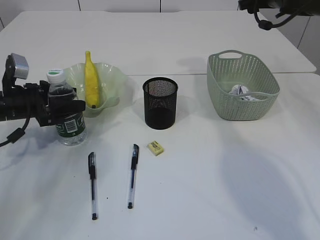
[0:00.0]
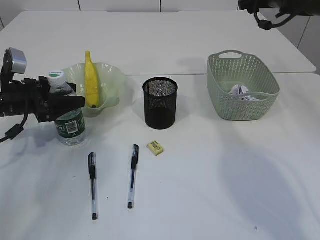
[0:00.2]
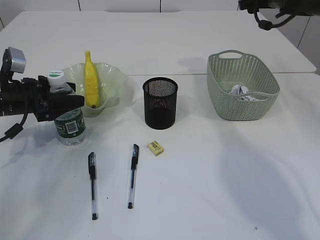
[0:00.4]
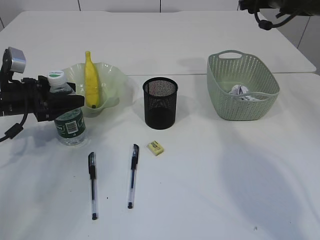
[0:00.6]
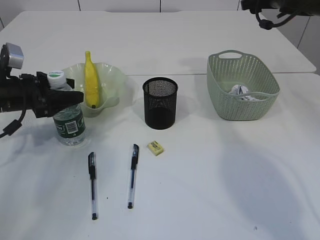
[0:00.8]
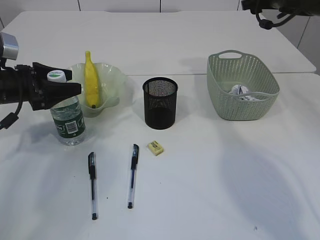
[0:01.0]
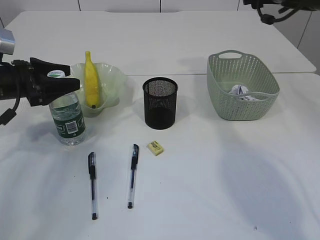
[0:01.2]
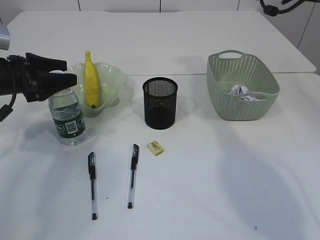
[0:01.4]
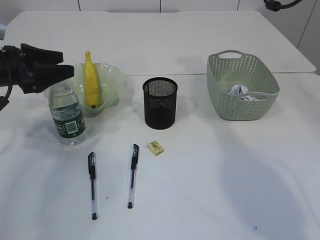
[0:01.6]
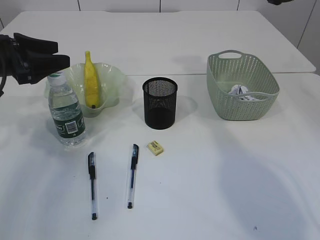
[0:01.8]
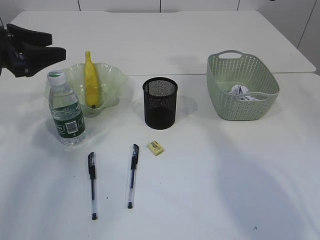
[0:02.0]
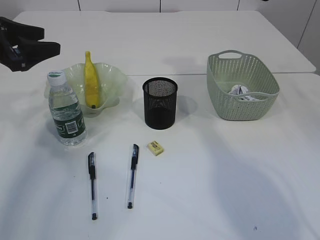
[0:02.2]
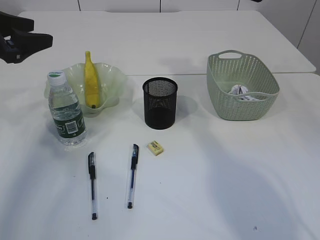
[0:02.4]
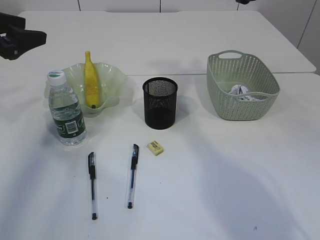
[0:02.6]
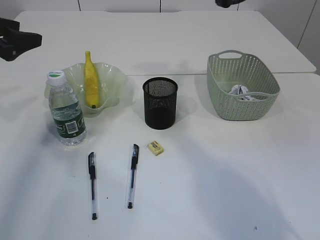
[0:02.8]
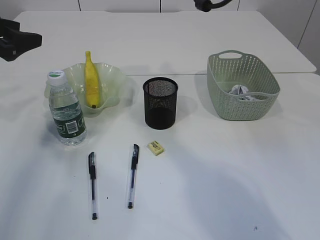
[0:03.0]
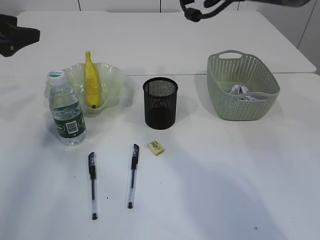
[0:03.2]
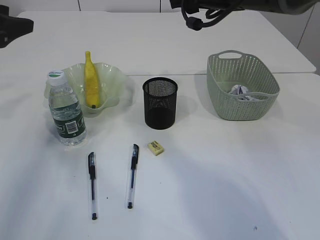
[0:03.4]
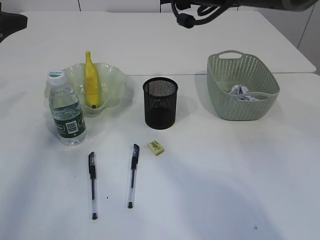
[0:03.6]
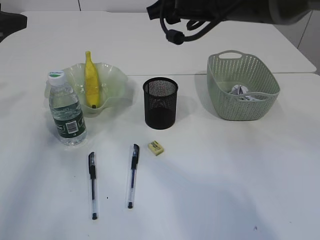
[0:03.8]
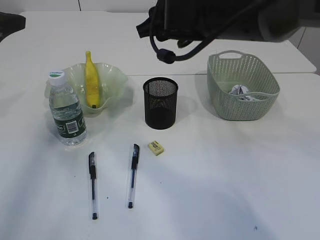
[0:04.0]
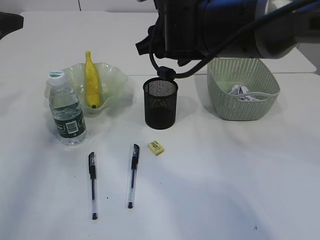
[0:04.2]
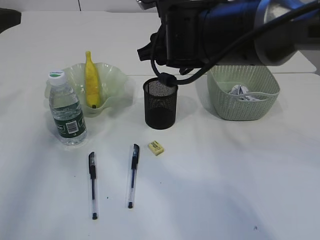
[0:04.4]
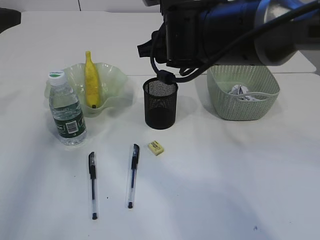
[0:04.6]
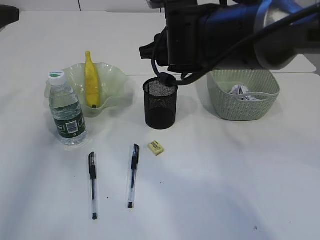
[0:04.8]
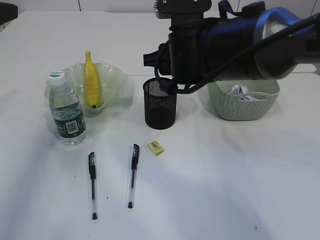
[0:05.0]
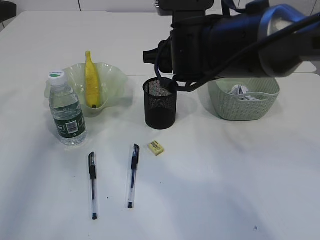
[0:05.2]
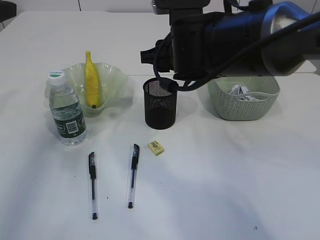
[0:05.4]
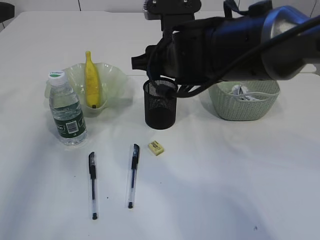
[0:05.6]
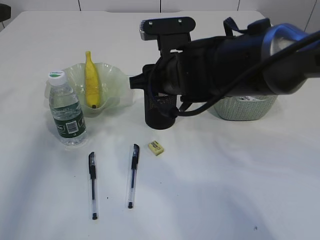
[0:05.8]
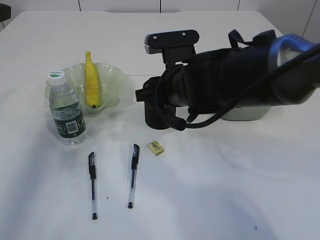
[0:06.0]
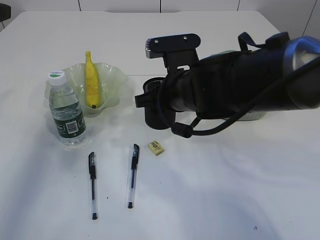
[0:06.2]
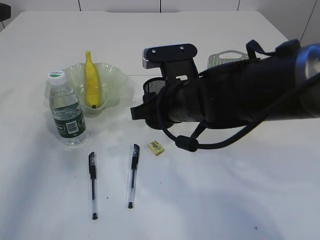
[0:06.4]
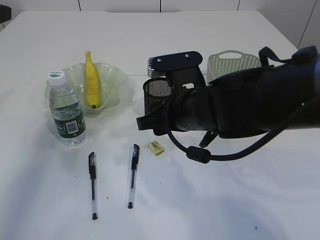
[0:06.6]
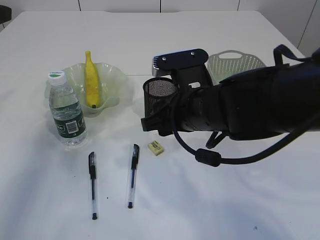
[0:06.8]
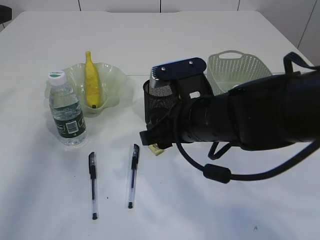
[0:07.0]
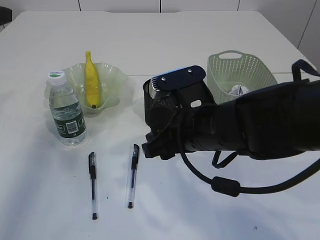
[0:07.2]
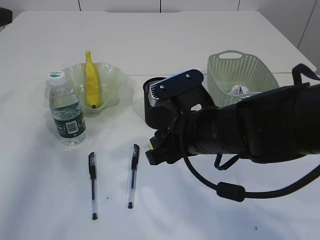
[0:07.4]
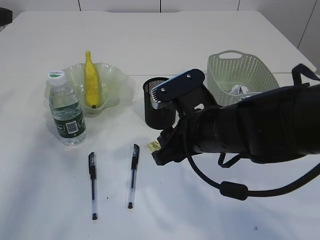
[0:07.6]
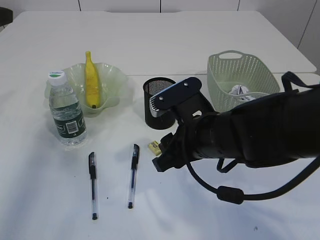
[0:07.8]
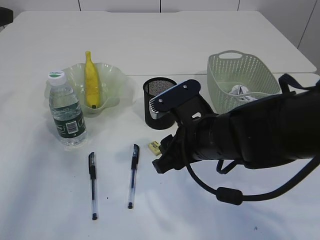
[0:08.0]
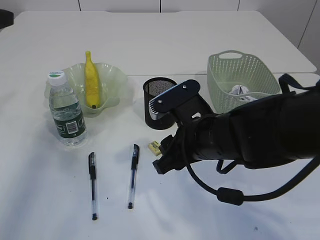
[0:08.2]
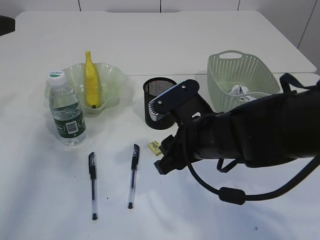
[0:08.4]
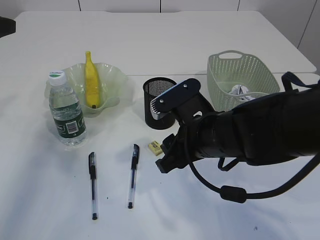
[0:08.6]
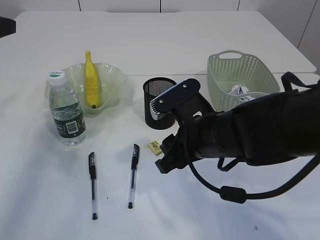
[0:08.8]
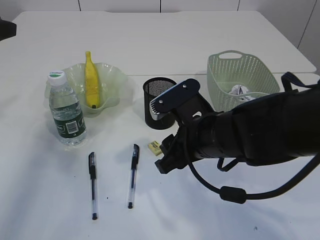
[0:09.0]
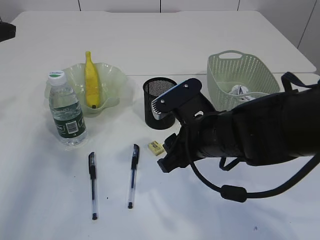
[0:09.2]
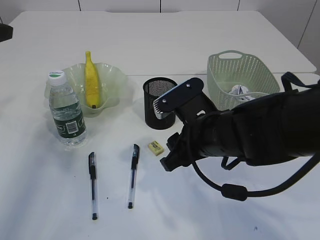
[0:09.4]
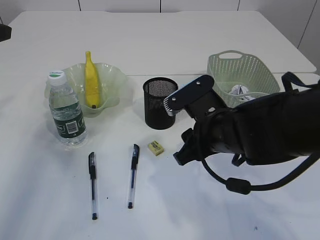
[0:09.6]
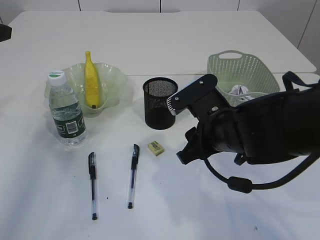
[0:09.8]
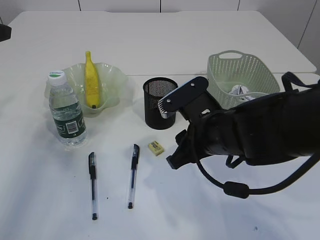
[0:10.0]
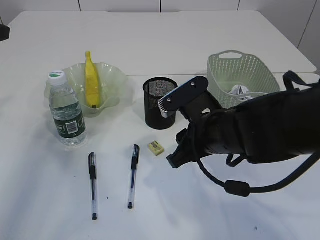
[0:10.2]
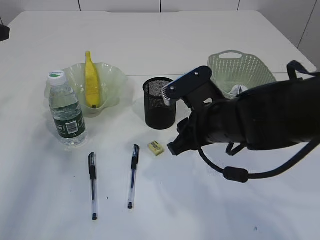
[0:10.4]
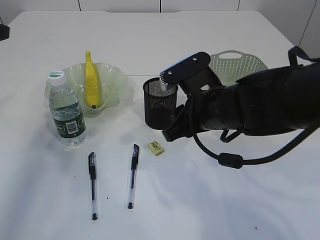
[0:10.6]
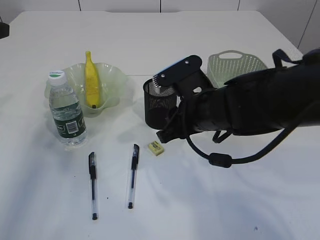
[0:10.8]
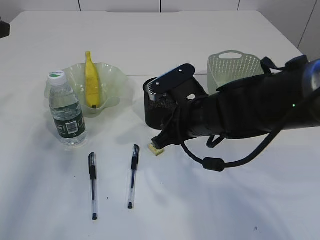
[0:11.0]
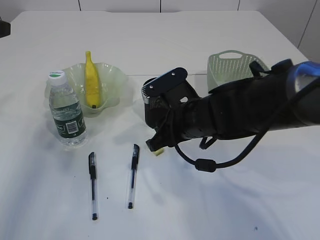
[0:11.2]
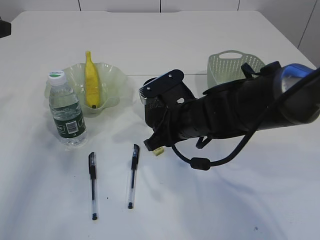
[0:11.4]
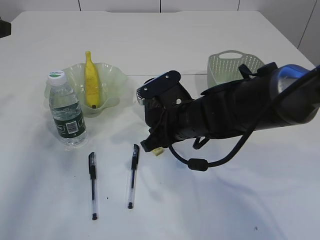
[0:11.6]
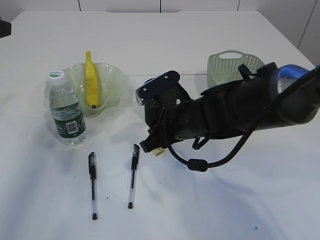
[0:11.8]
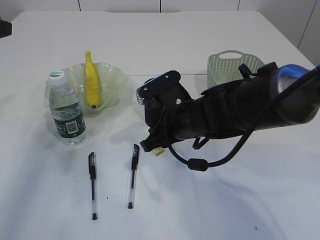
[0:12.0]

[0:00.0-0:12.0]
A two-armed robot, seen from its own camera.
0:00.0 to 0:01.6: The left gripper shifts roughly 10 cm upward.
0:01.6 to 0:03.0: The right gripper is displaced to the left by some 15 cm; the left gripper shifts roughly 5 cm upward.
0:03.0 to 0:04.4: The right gripper travels downward, backward and to the left by roughly 15 cm.
0:04.4 to 0:06.0: The right gripper travels downward by some 5 cm.
0:06.0 to 0:07.6: The right gripper travels backward by some 5 cm.
0:07.6 to 0:10.4: There are only small adjustments of the grippers.
0:10.4 to 0:12.0: The right gripper shifts by about 5 cm.

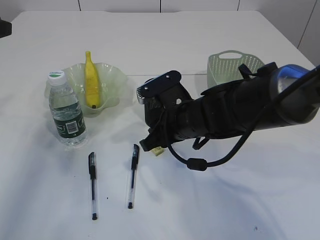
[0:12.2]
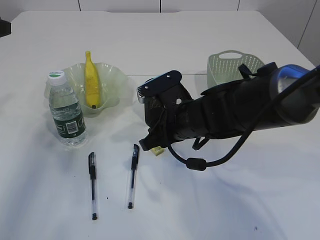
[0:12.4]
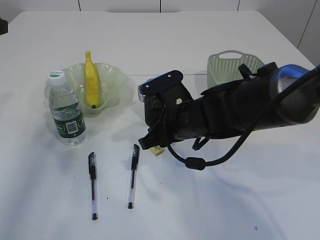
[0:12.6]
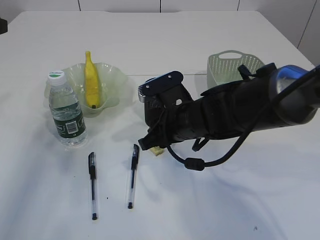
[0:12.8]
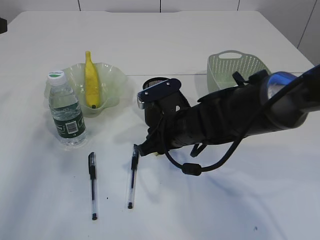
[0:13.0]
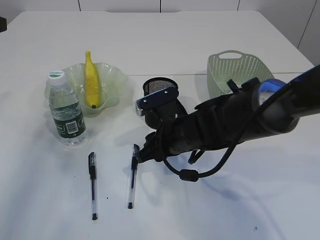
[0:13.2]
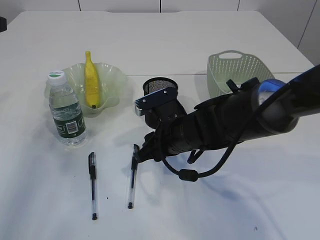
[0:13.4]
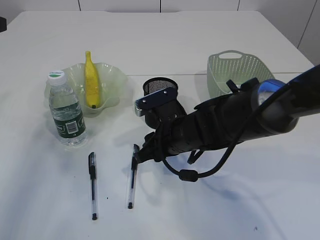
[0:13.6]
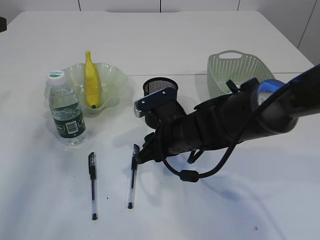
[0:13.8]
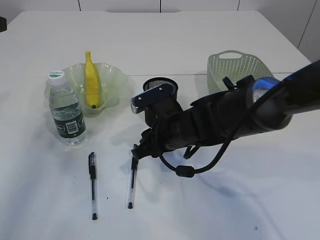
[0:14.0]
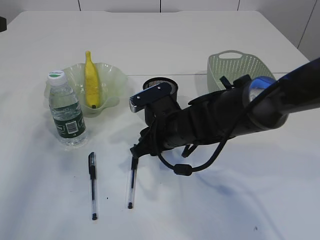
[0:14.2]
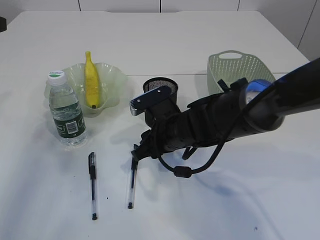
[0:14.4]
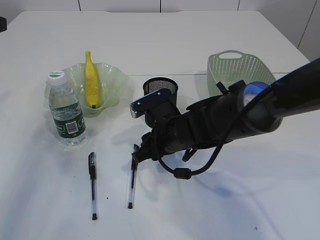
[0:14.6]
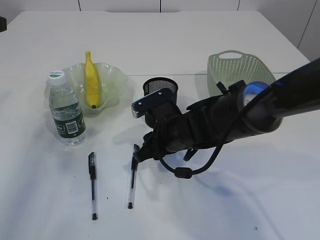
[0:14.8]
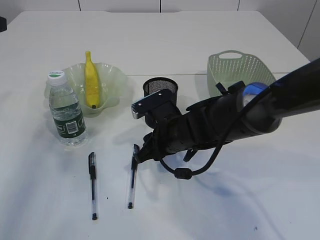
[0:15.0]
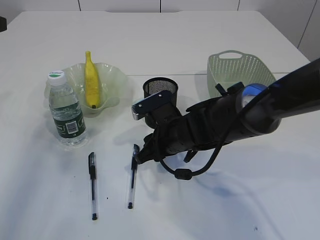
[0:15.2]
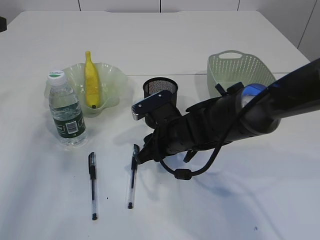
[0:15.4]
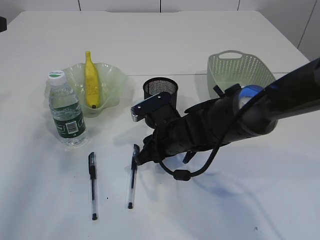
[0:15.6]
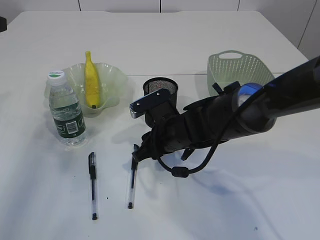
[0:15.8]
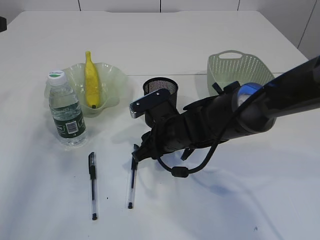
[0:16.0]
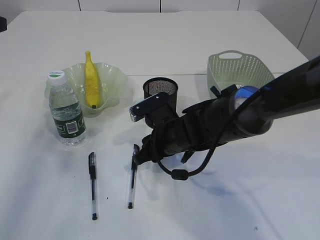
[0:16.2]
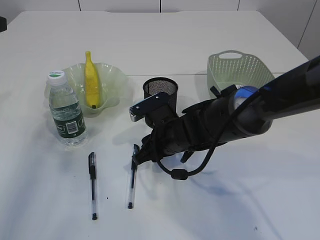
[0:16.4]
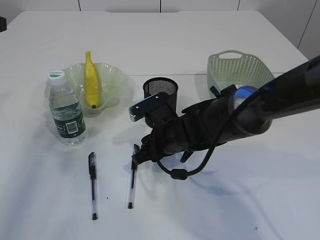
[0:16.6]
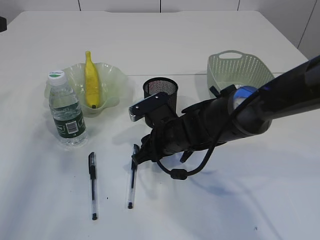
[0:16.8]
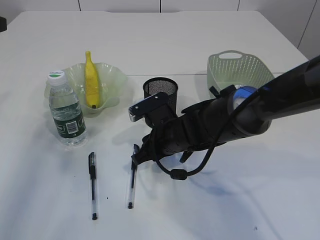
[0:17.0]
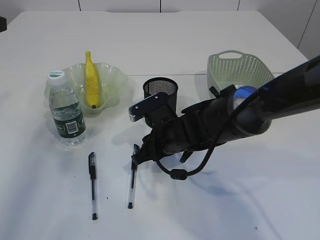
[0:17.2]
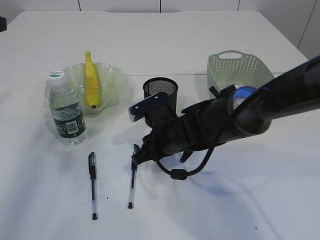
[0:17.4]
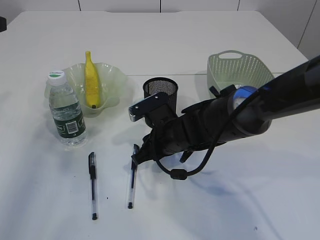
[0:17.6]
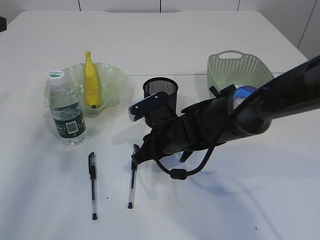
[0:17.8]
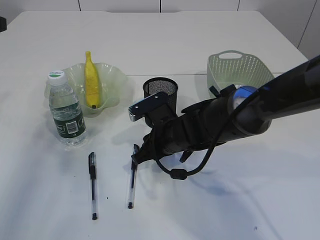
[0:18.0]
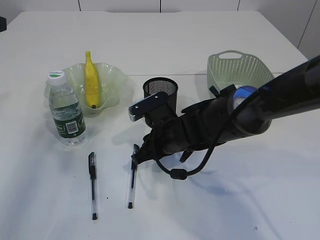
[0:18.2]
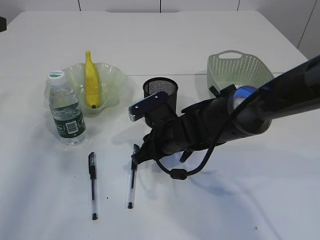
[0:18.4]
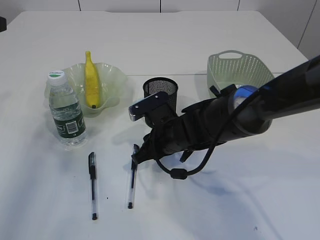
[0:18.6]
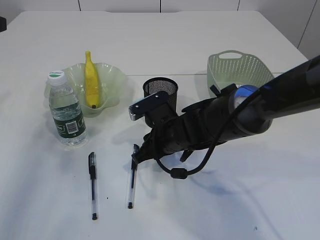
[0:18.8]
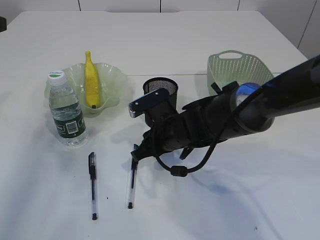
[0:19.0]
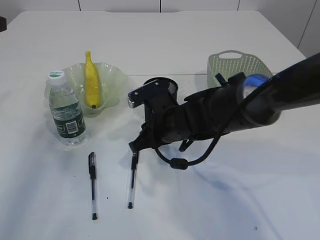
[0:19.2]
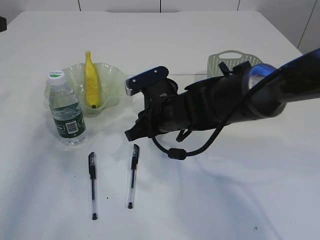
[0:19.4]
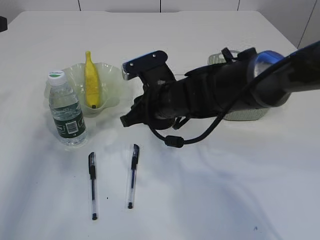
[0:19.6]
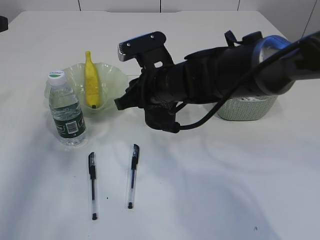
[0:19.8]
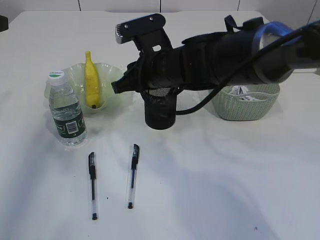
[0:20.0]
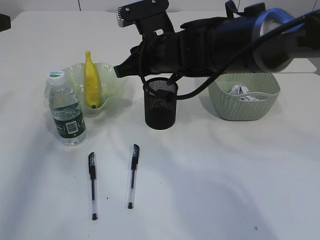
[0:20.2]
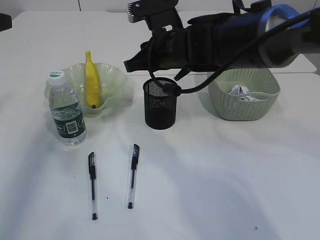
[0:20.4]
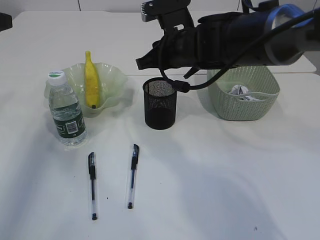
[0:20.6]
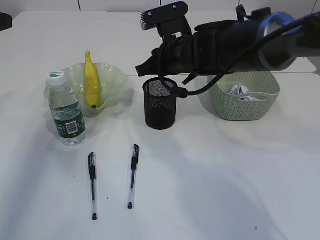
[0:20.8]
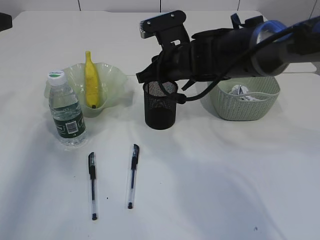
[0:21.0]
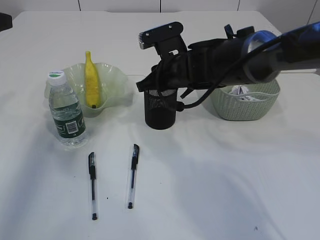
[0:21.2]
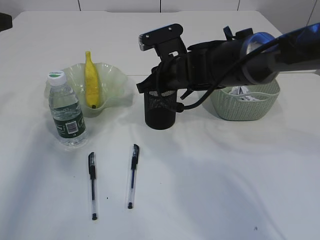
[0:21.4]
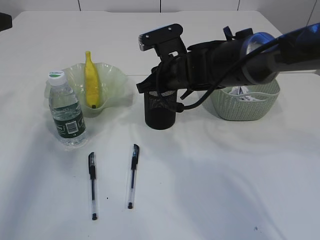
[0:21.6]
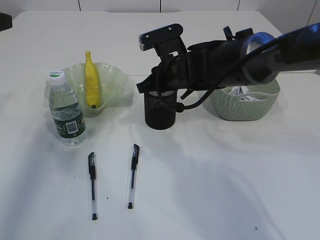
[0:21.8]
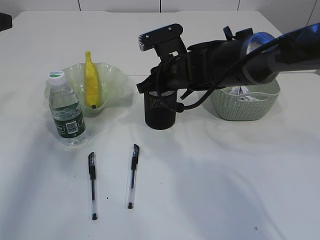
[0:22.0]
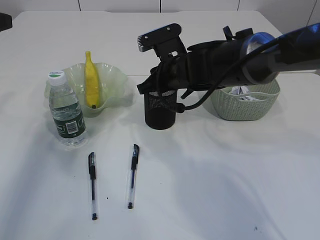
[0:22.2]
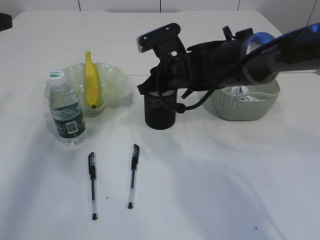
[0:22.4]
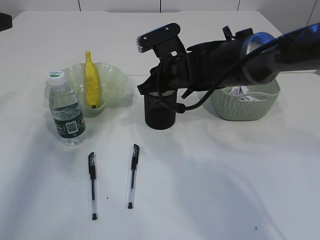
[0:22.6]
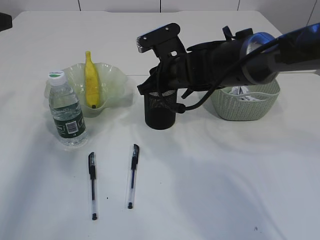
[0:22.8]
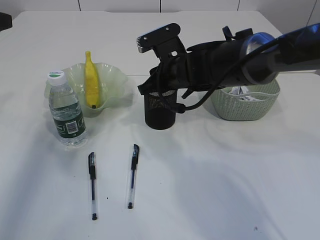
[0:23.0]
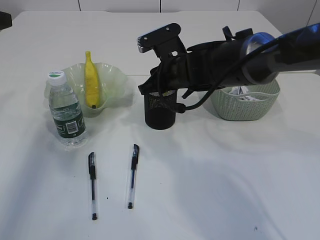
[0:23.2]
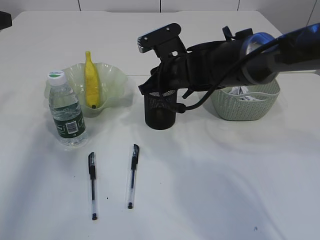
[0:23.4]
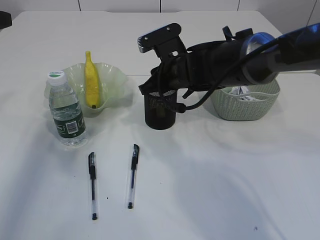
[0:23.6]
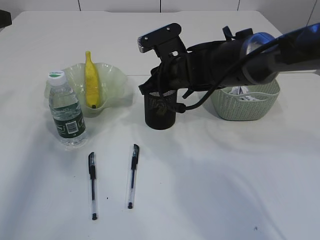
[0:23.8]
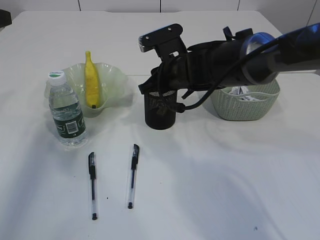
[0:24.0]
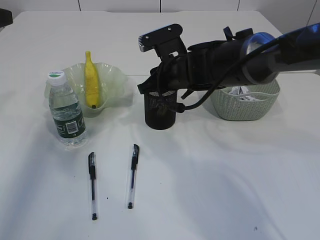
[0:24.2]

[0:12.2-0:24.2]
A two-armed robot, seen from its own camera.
Step, 0:12.2 to 0:19.2: Pick up the eraser.
0:12.2 to 0:15.2: The grippers stay close to where they were, moving slightly.
0:15.2 to 0:18.2: The two grippers keep their place.
0:18.2 to 0:19.8: The right gripper heads upward, covering approximately 10 cm.
0:19.8 to 0:21.2: The right gripper is displaced forward by about 5 cm.
0:21.2 to 0:24.2: Both grippers stay put.
